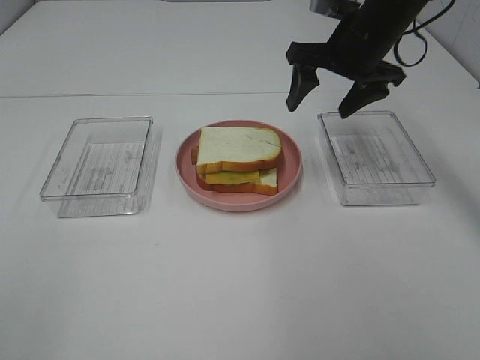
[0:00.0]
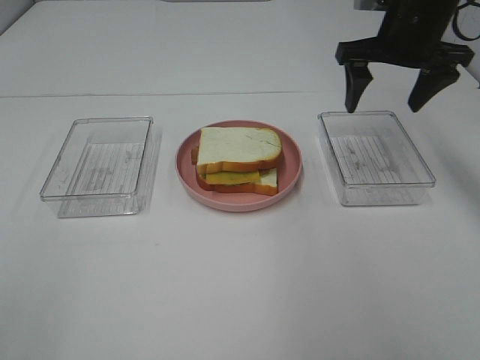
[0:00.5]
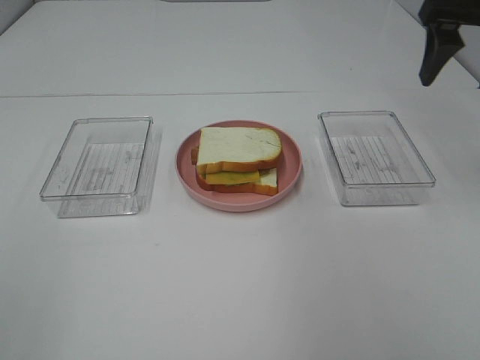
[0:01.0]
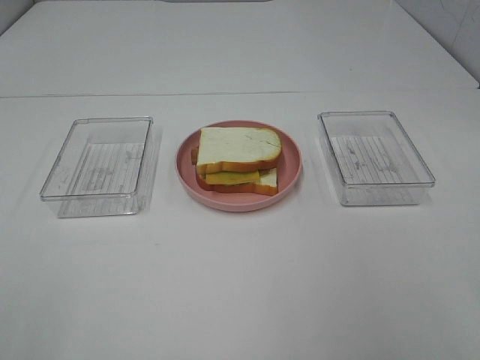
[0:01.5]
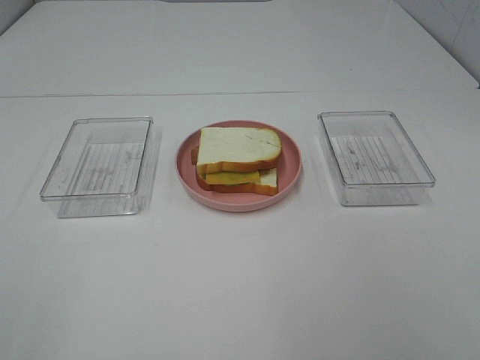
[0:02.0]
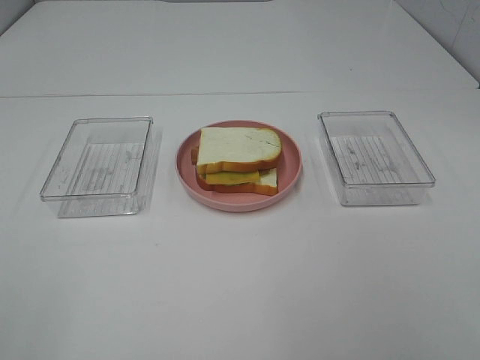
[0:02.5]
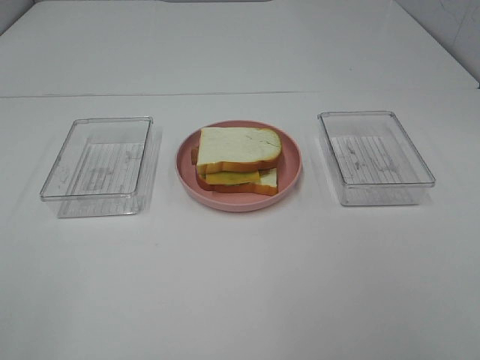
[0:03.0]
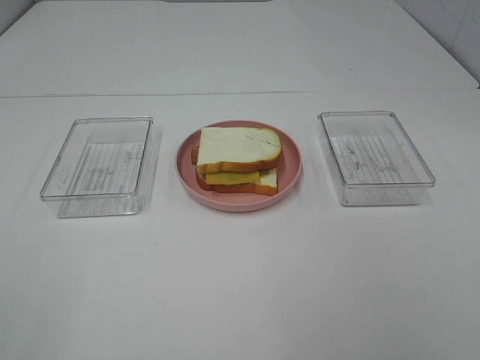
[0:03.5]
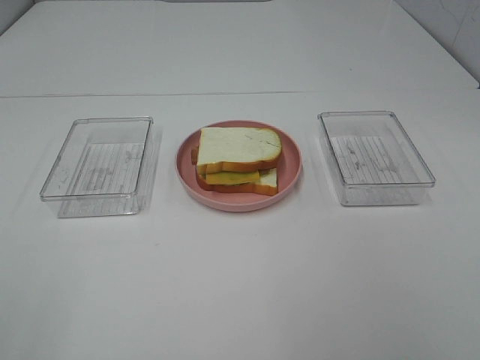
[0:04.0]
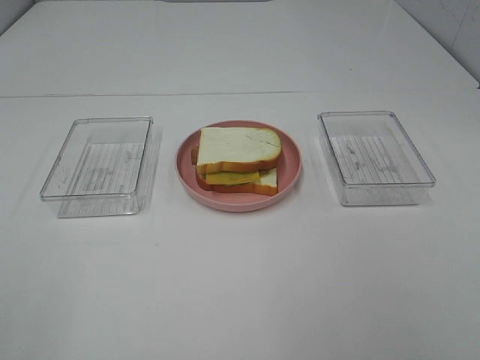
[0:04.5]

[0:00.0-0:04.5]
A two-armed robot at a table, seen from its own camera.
Task of the whole recording: Make sandwiches.
0:00.0 to 0:02.0: The right gripper goes roughly 40 cm backward.

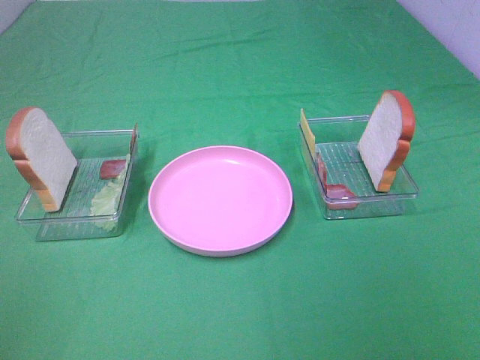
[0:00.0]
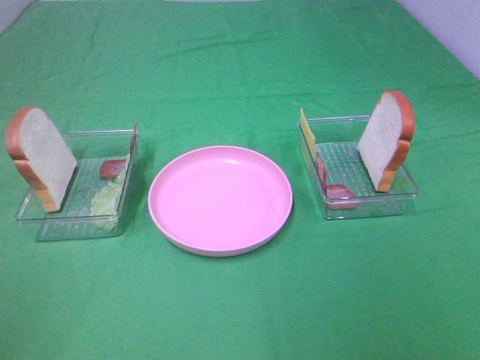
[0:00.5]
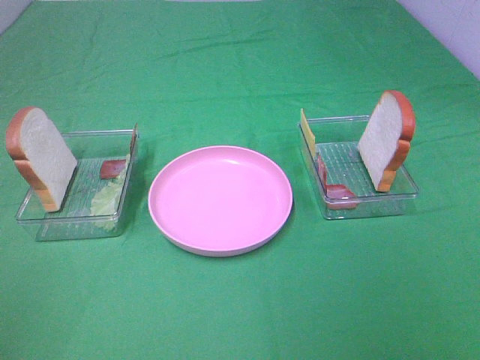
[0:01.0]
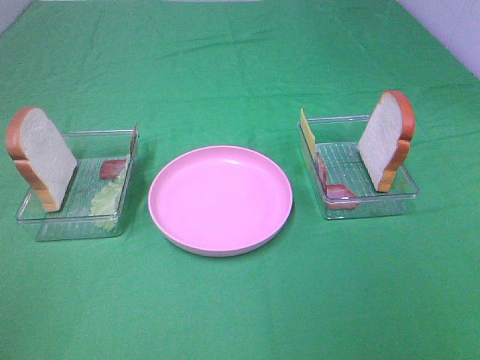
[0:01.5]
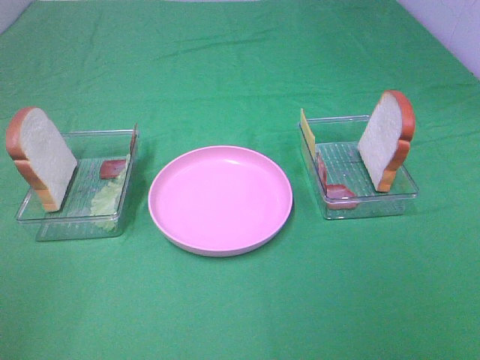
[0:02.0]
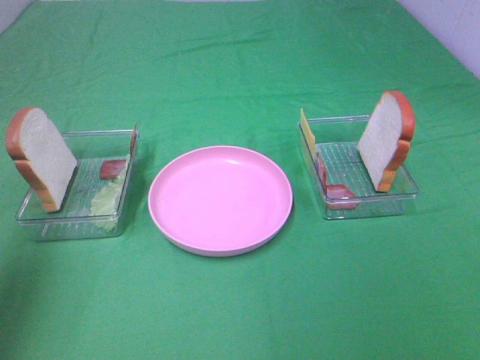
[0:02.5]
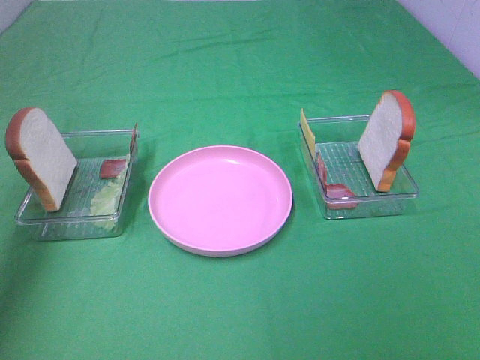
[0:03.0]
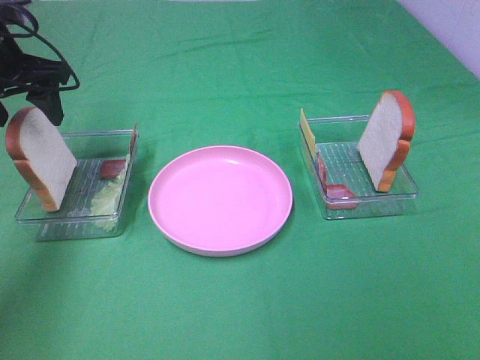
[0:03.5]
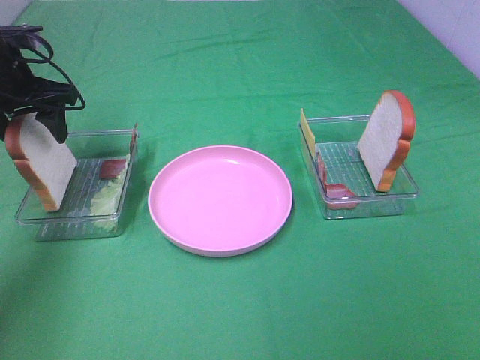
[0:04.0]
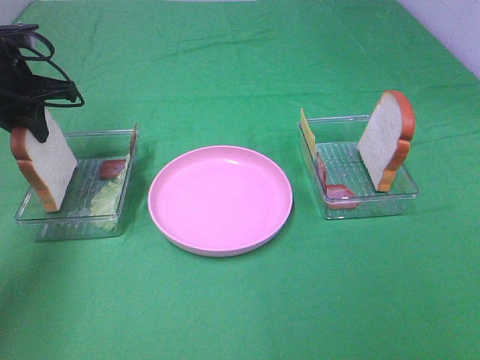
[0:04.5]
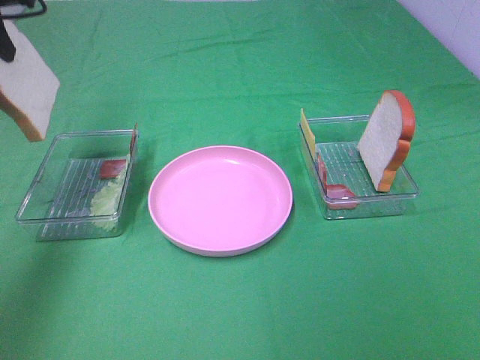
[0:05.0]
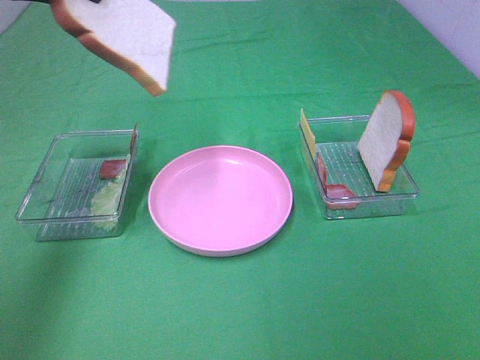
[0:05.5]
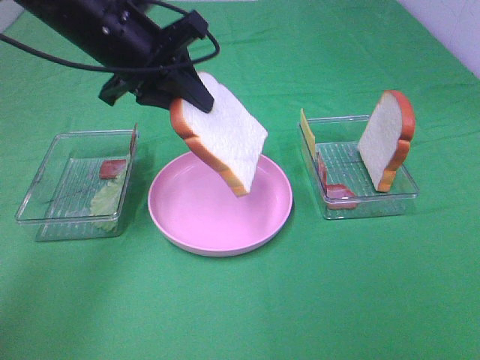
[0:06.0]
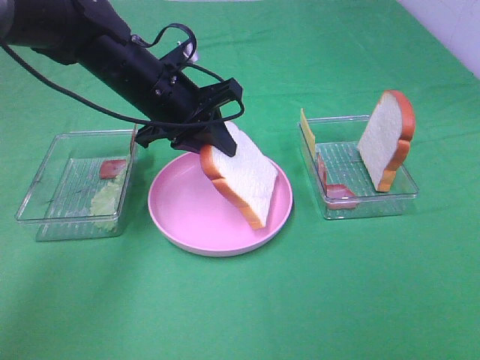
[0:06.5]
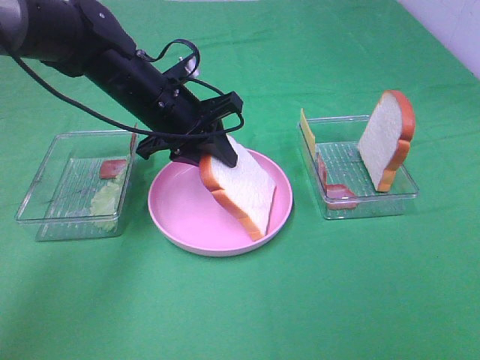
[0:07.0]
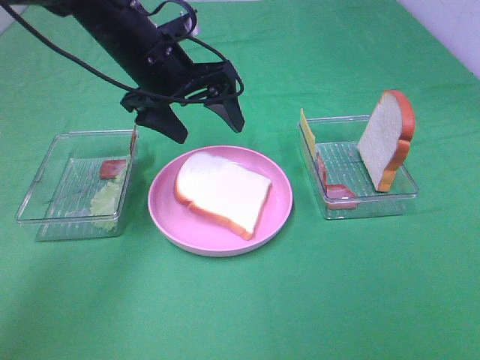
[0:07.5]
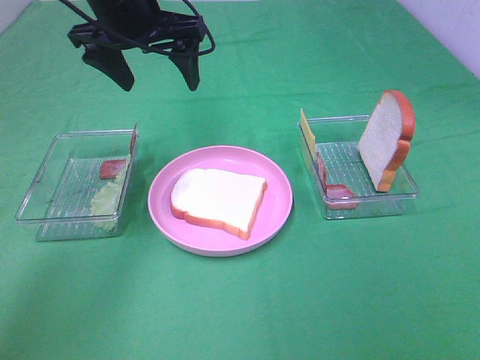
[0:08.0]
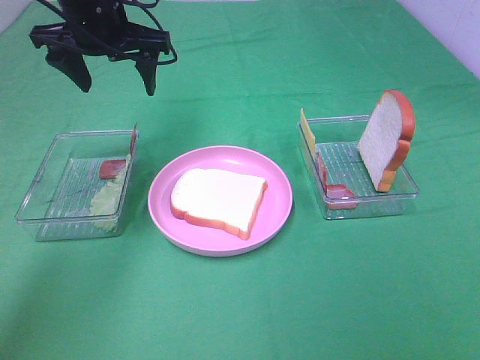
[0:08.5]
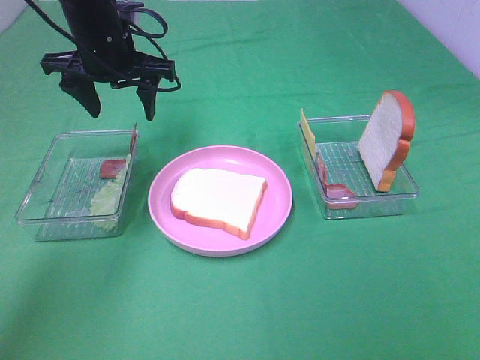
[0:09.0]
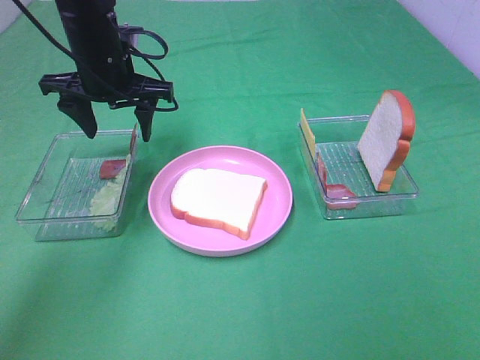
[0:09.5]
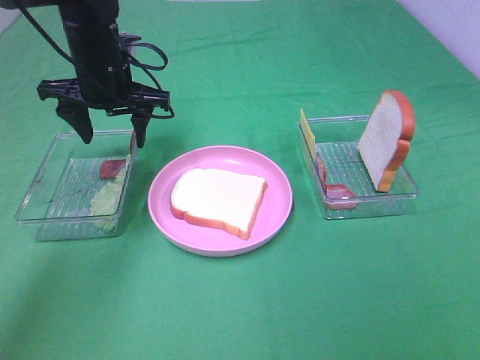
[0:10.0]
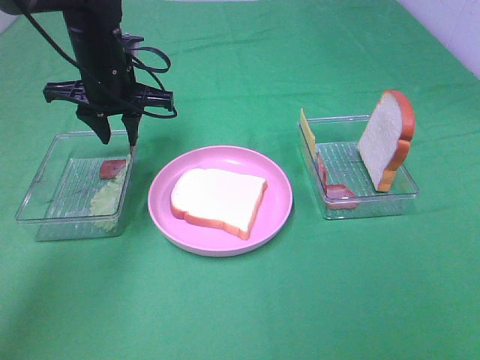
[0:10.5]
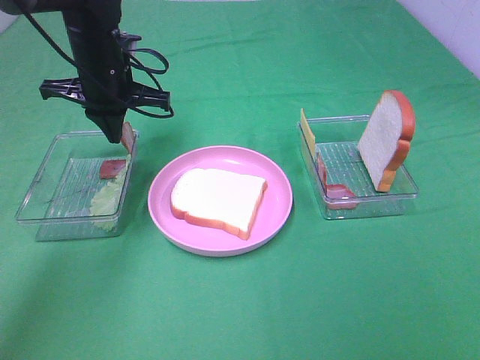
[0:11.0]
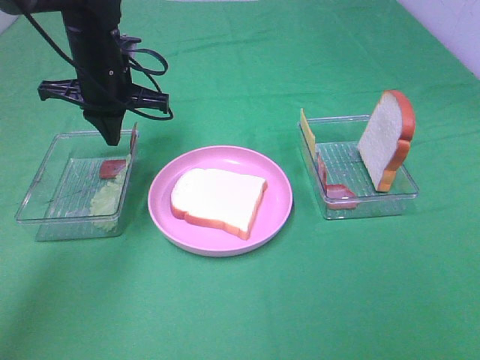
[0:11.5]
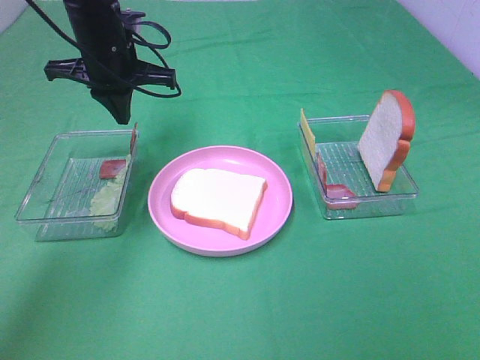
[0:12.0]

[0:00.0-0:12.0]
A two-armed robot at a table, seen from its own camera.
Task of the whole recording: Make sandwiches.
Step, 0:00.0 to 0:04.5: Left hand:grab the bread slice.
Step, 0:05.0 to 0:07.5: Left hand:place the bread slice on the plate.
0:02.0 to 0:04.0: The left gripper is displaced forward by approximately 40 cm.
0:04.0 to 0:06.0: The left gripper moves to the right, roughly 15 cm, and closes its fingers.
0:06.0 to 0:08.0: The left gripper moves some 10 cm downward and comes back, and opens its fingers.
0:08.0 to 0:10.0: The left gripper is displaced downward by approximately 10 cm.
0:10.0 to 0:12.0: The left gripper closes.

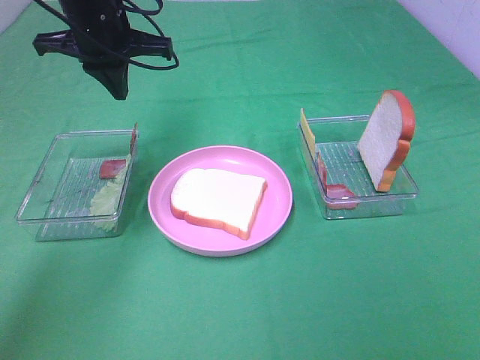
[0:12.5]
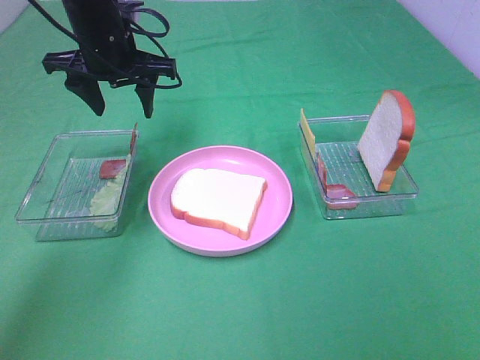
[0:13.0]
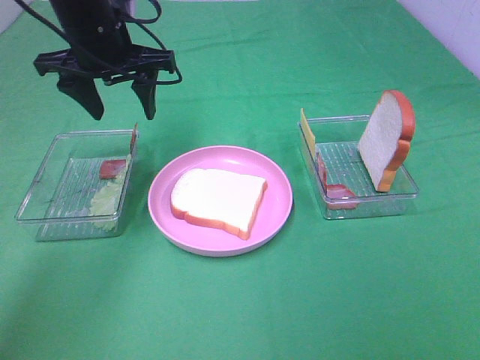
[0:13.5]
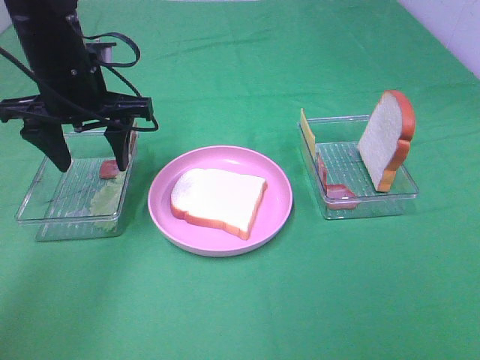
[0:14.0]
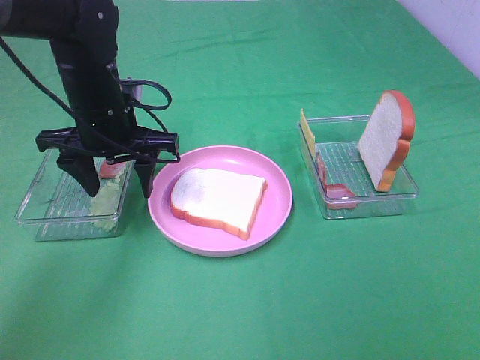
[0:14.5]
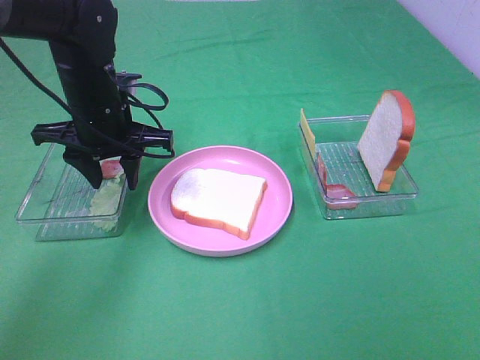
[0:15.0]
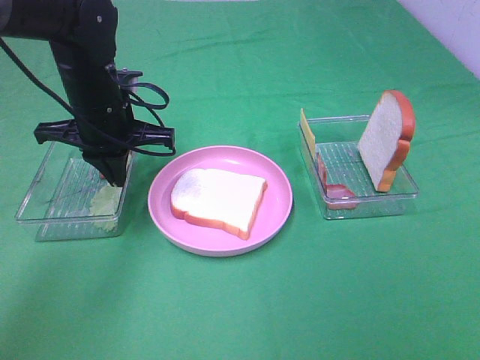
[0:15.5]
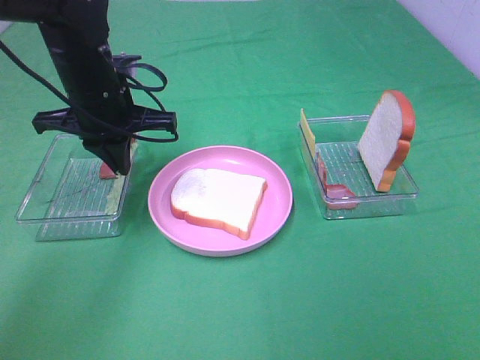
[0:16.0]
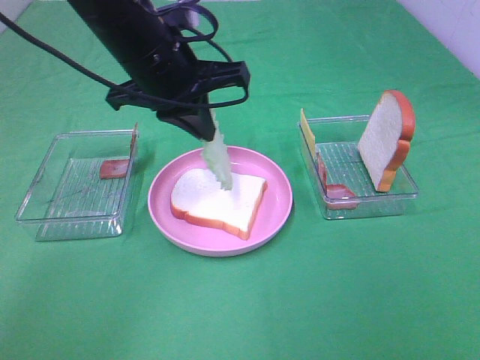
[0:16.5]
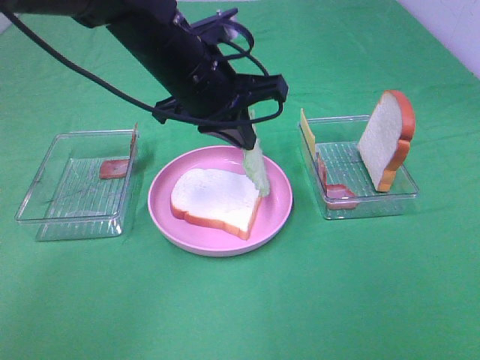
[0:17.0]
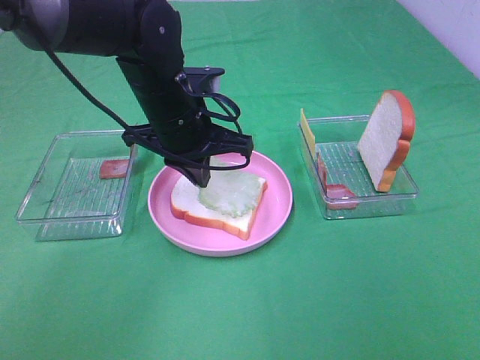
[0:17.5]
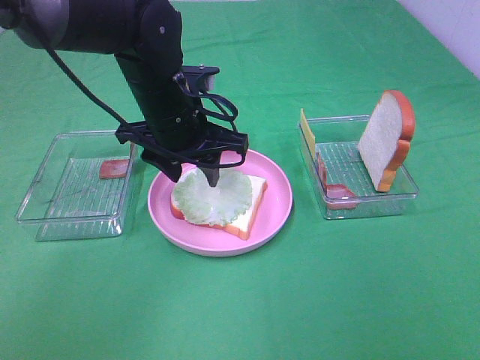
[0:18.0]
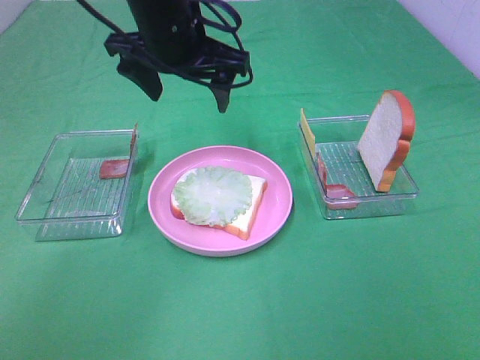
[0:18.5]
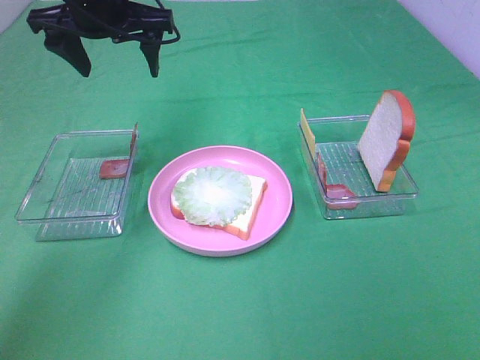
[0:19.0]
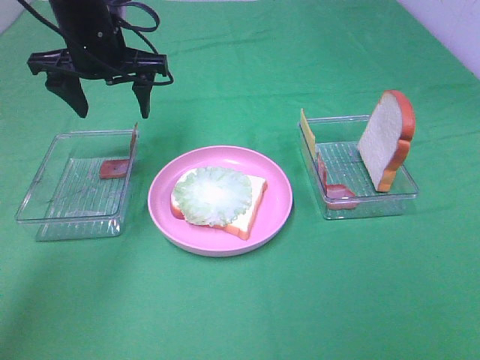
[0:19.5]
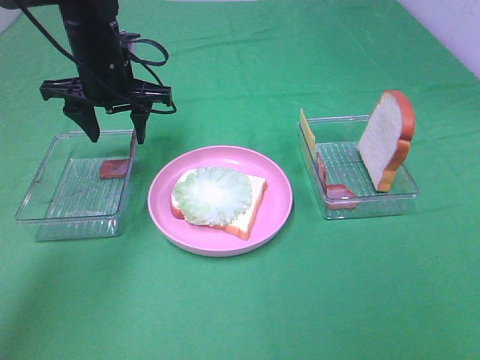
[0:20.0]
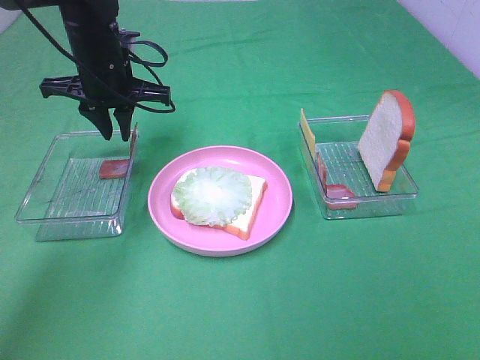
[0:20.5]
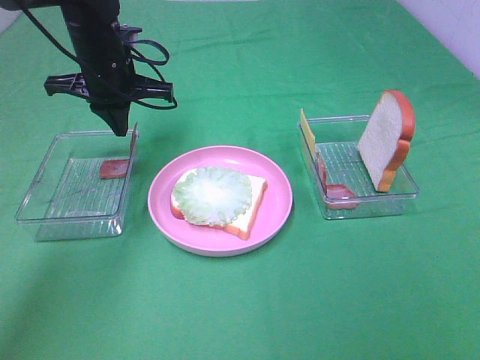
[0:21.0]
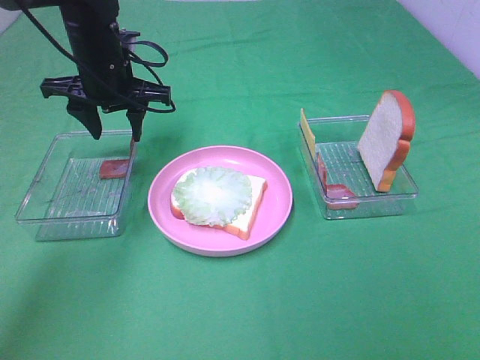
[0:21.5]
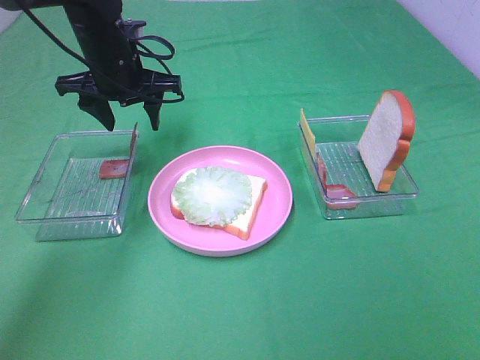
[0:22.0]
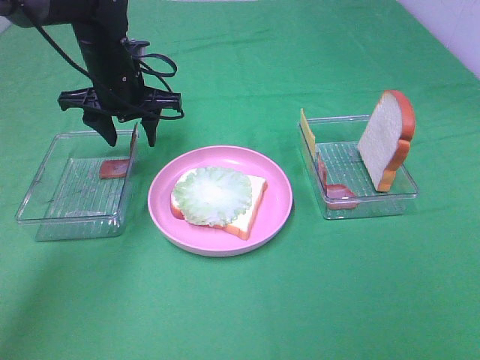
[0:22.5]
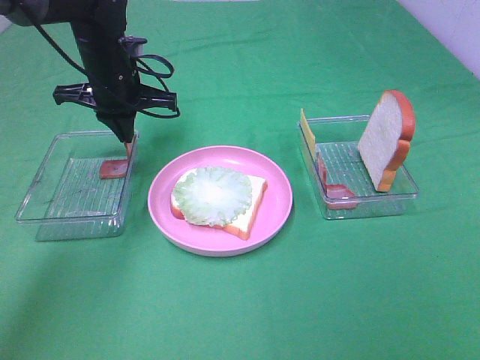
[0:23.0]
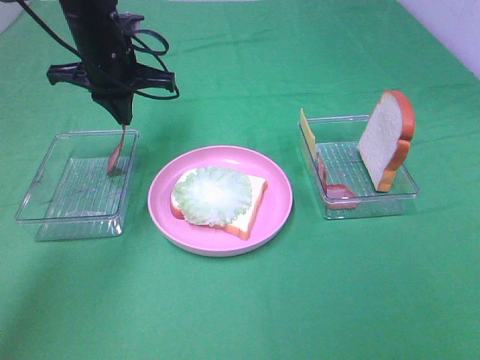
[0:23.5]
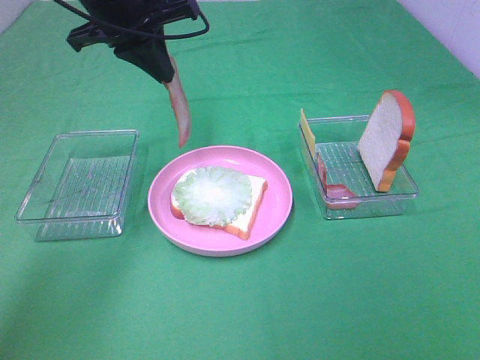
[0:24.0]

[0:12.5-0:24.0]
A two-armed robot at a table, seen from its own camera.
Task of the whole recording: Make sandwiches.
Step, 0:12.5 to 0:15.5: Left hand:grab the lettuce slice.
Step, 0:16.0 to 0:18.0: Left hand:place the lettuce slice on the bread slice.
Step, 0:18.5 to 0:23.0: Left hand:grab the bacon.
0:12.5 to 0:14.5: The left gripper moves downward and backward, approximately 10 cm, and opens.
0:14.5 to 0:16.5: The left gripper shifts some 10 cm upward and to the right, and closes up.
0:16.5 to 0:18.5: The left gripper moves about 10 cm downward and comes back, and opens its fingers.
0:18.5 to 0:20.0: The left gripper heads to the left, downward and forward, covering roughly 15 cm.
0:20.0 to 0:22.0: The left gripper closes, then opens again.
0:22.0 to 0:24.0: The left gripper moves upward, some 10 cm, and closes up.
